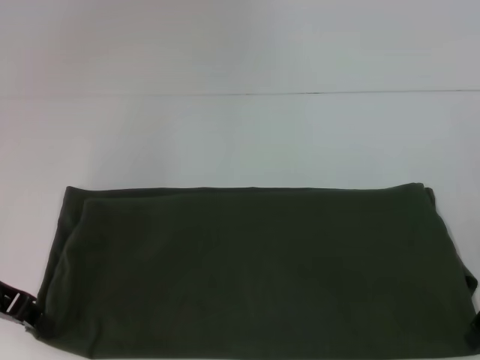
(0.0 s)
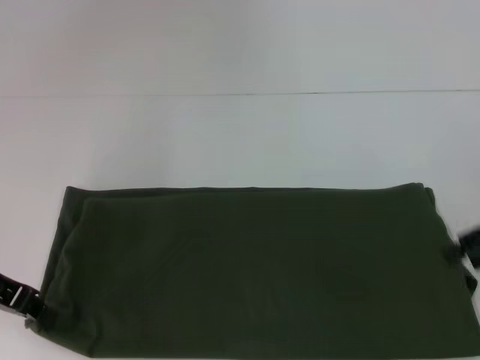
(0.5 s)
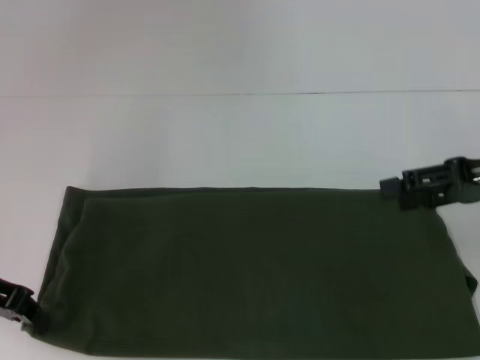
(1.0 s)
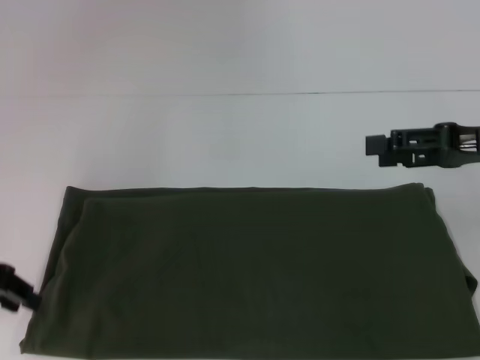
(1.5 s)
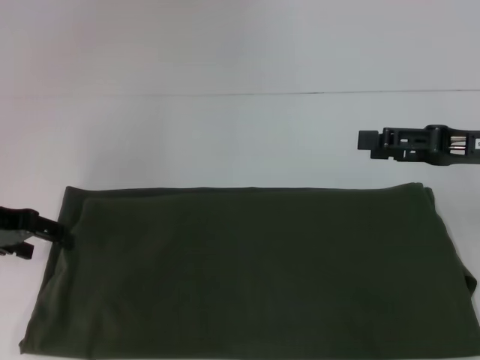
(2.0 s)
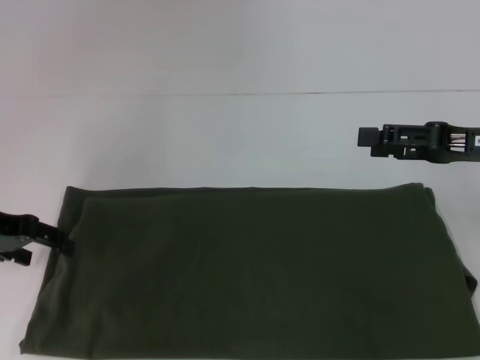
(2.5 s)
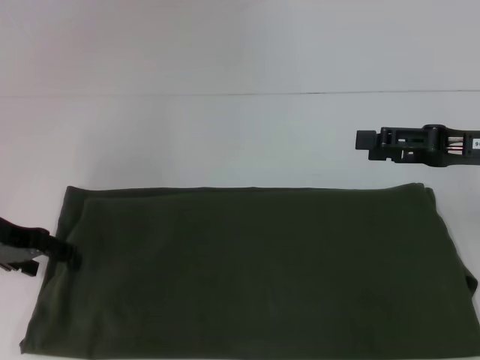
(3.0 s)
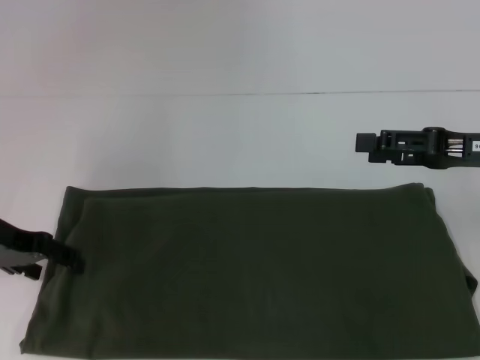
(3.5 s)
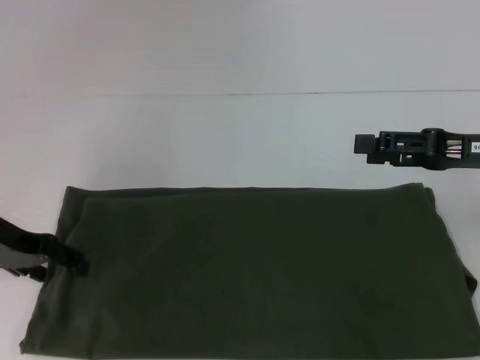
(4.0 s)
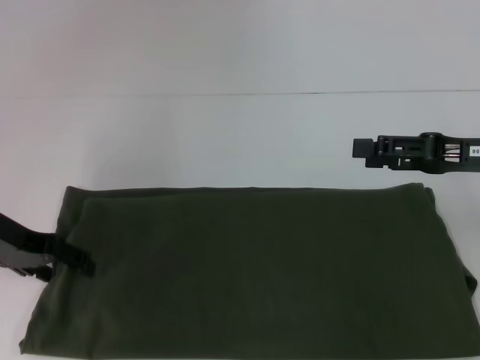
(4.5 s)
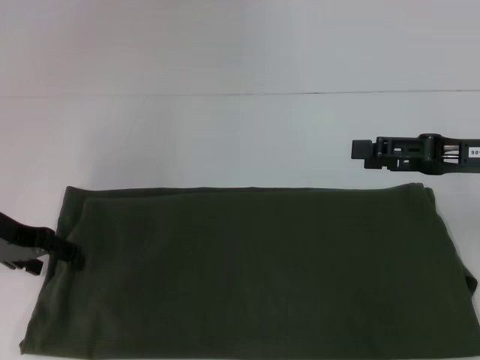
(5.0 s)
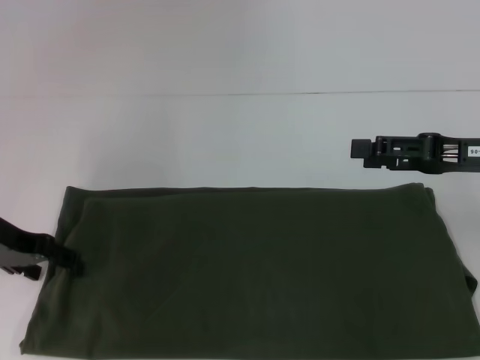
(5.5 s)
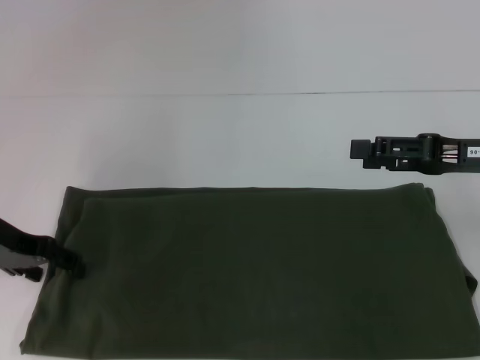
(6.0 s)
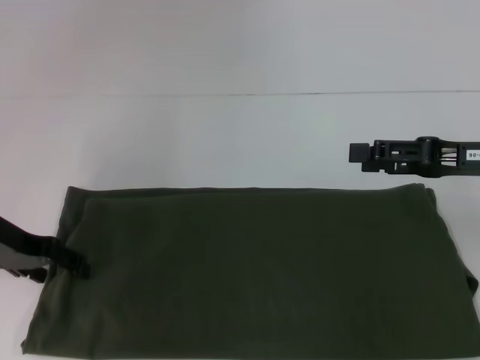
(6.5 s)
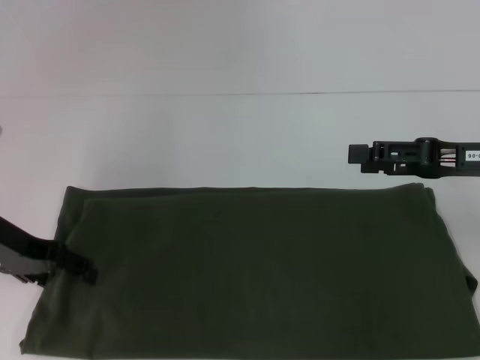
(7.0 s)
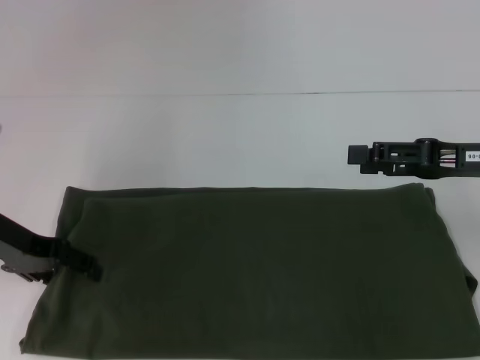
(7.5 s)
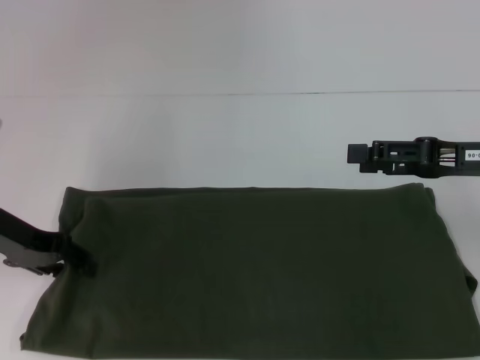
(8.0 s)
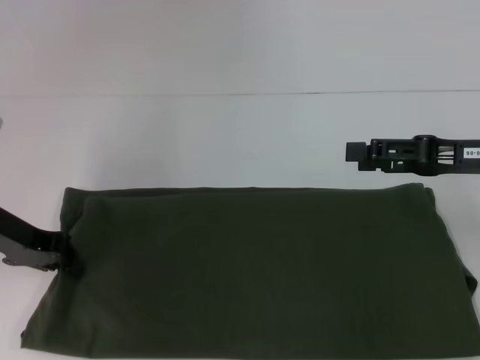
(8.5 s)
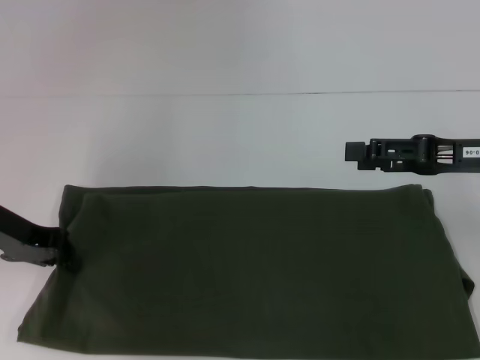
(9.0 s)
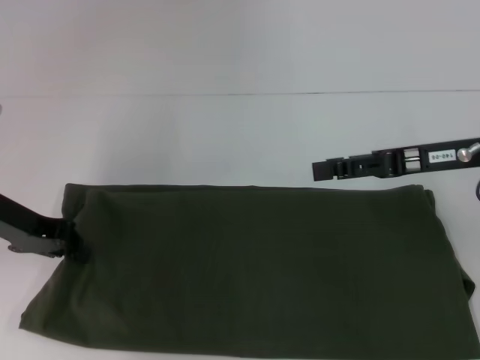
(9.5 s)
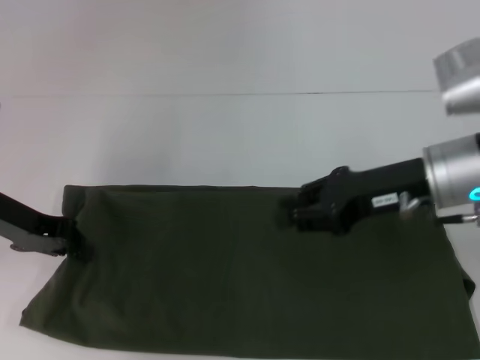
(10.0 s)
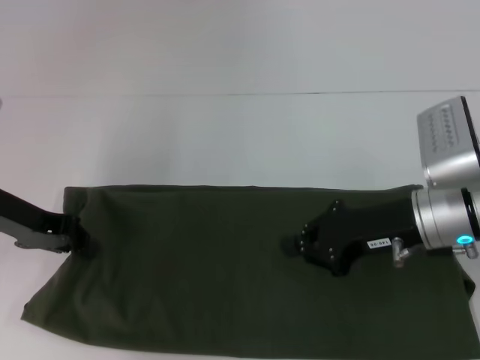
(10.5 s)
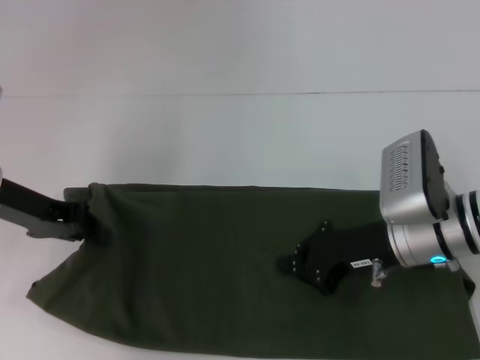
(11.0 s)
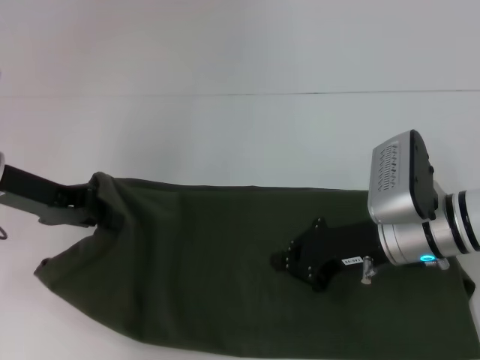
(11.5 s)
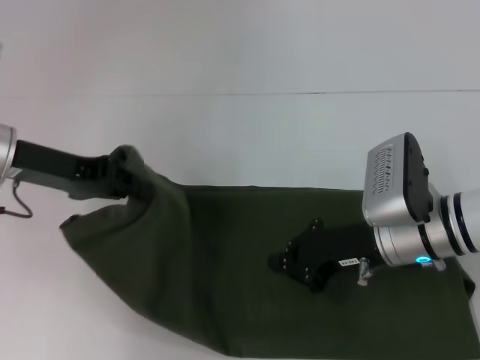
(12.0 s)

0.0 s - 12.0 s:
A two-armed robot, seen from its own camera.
Step, 0.5 s - 1.0 s: Pull the clothes with your left hand.
0.0 s - 2.0 s: The left gripper opens its fingers; the right gripper opens its fingers.
2.0 s - 4.0 s: There are only small adjustments of the grippers.
4.0 s - 6.0 s: Both grippers stay about where they are.
6.0 s - 8.0 s: There are only small adjustments of the grippers.
8.0 s - 10.0 s: The right gripper goes approximately 10 cm to the left, while the left gripper closes its fingers.
10.0 s - 12.0 s: The right gripper moves downward, about 10 cm, and closes.

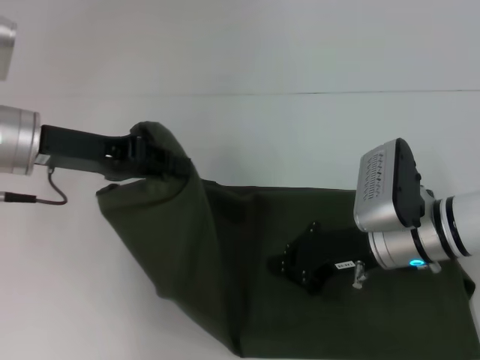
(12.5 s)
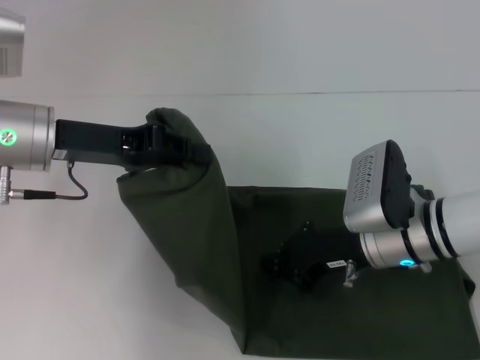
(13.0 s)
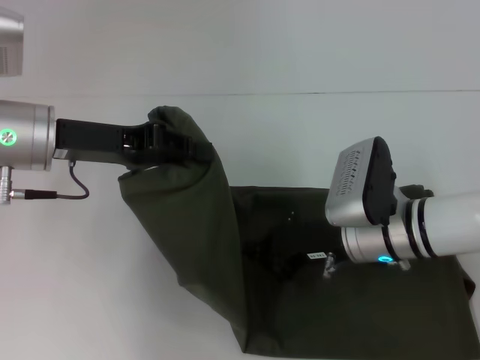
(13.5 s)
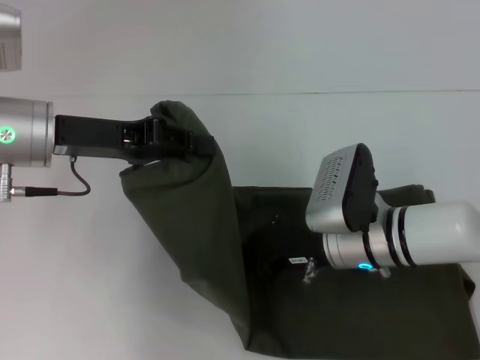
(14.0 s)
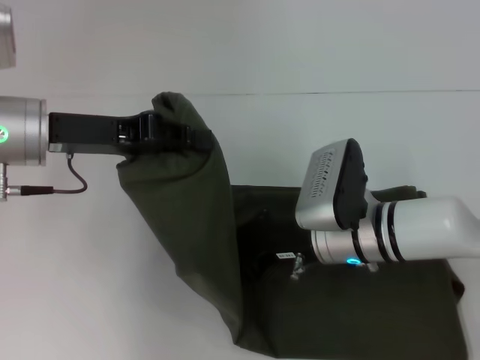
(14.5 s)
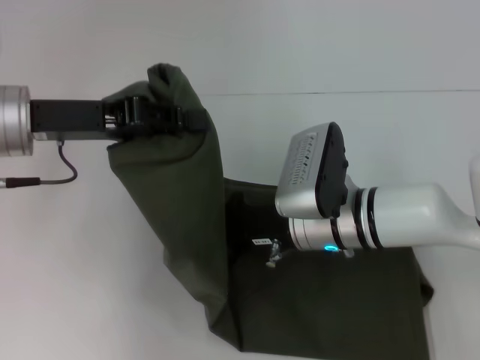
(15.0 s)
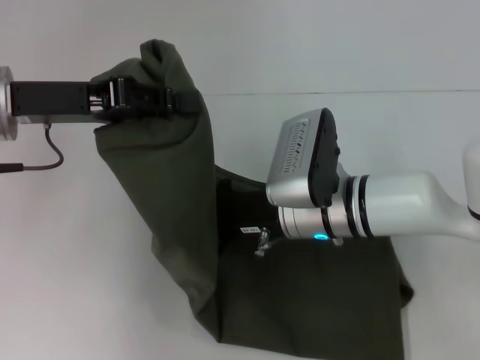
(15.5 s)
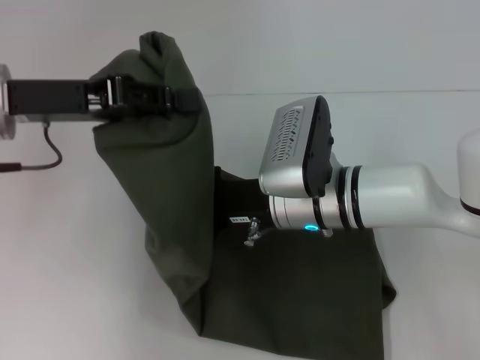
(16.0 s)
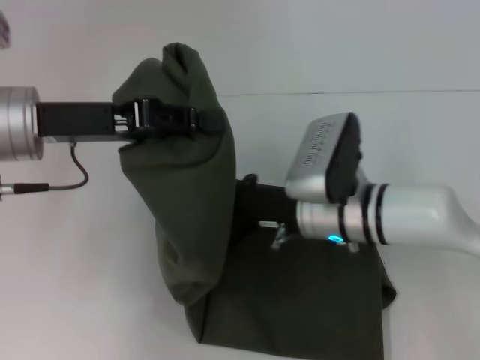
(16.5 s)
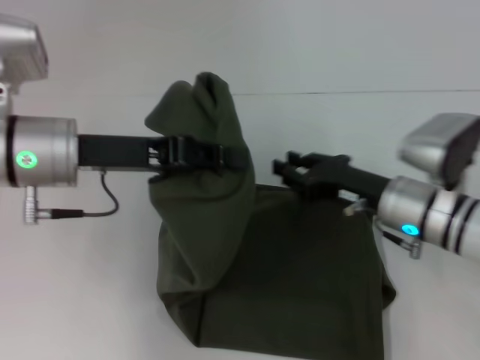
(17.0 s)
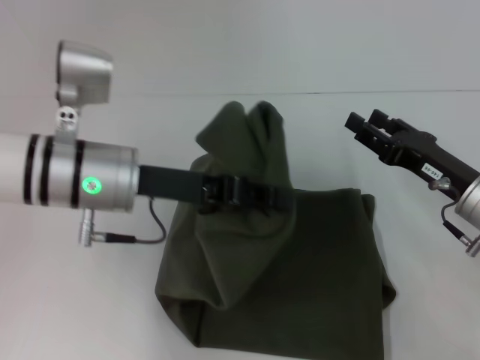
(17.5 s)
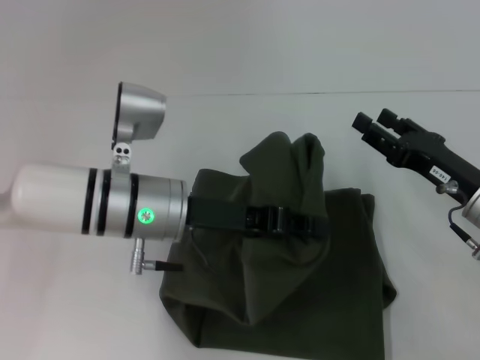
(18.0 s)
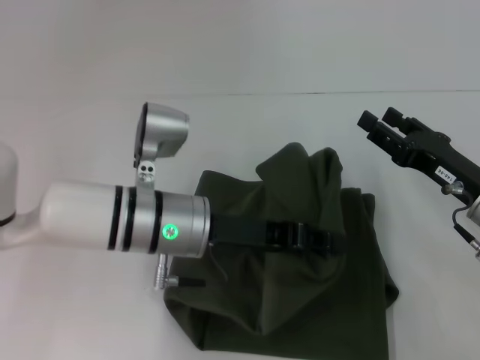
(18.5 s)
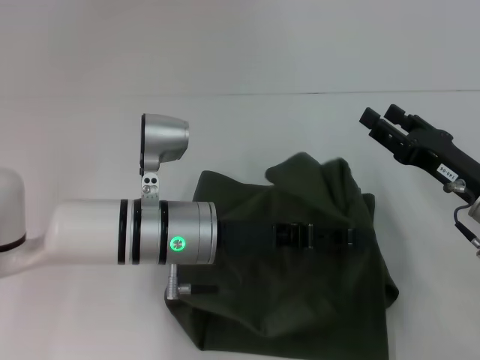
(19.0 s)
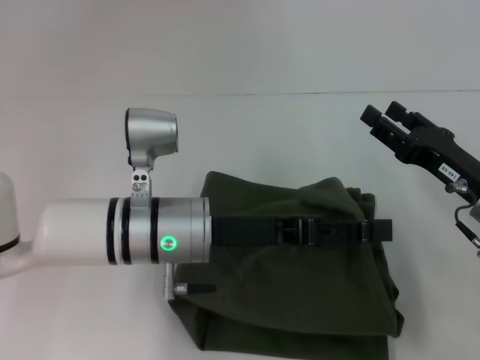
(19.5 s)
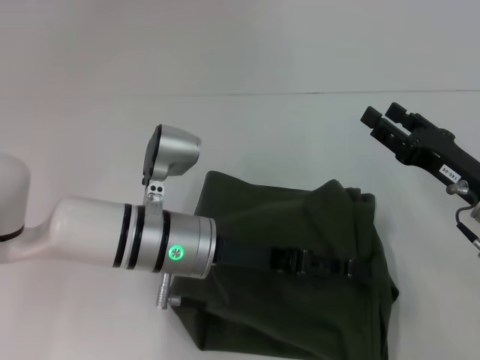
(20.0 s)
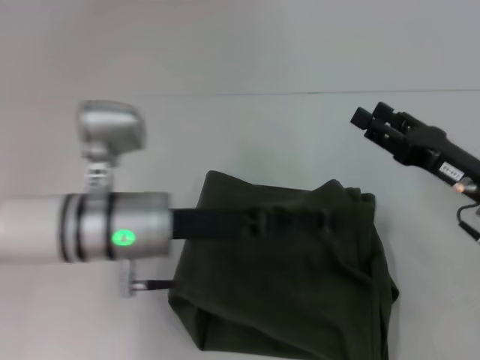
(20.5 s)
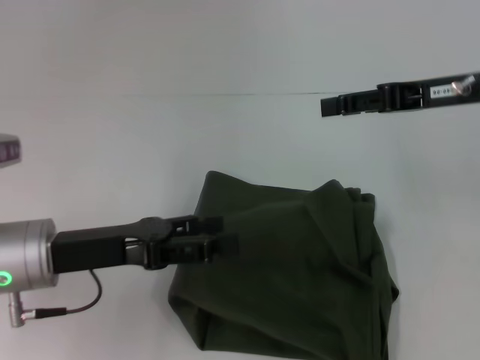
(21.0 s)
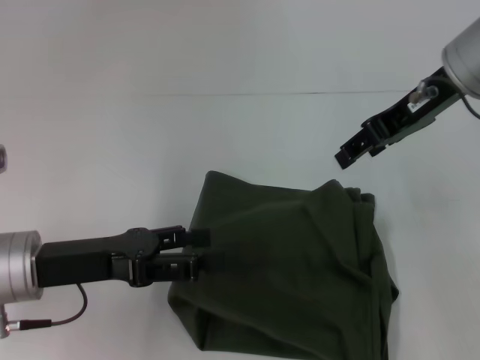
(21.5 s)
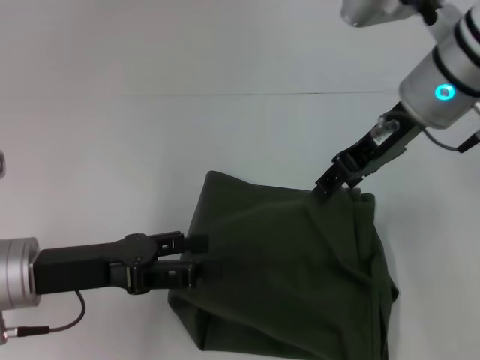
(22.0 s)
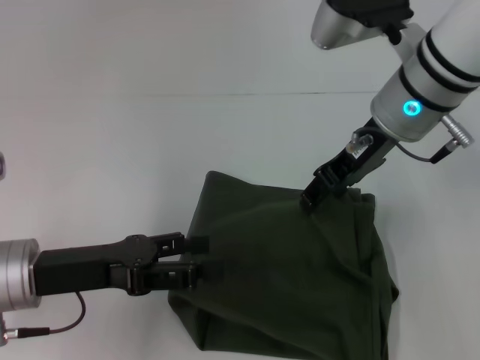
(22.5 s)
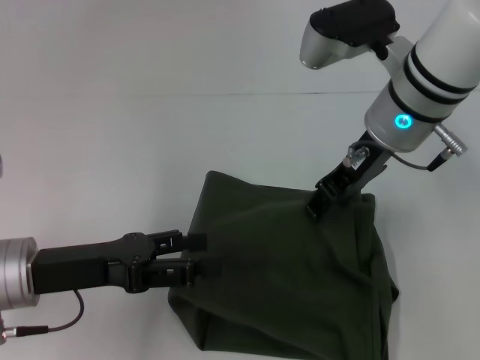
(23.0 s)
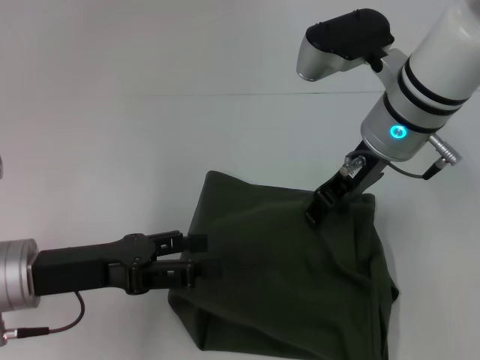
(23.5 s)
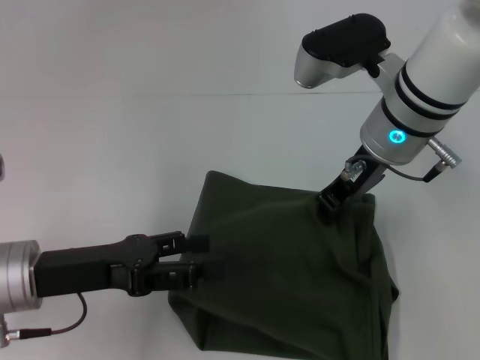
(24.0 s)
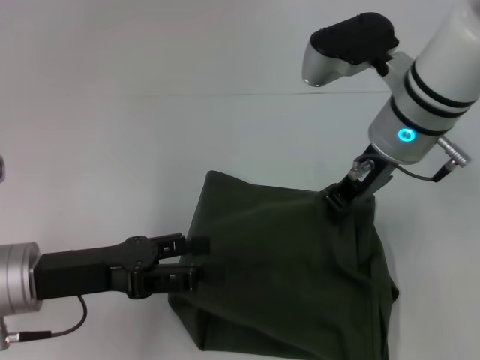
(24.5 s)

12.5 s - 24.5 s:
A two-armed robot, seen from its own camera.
Step, 12.5 s - 19.0 s: Fold the clothes with your left hand.
12.5 s - 14.5 s: The right gripper shifts some 5 cm to the left.
16.5 s - 18.5 s: The right gripper moves to the right, about 15 cm, and opens its fingers, while the left gripper heads to the right and downward, covering roughly 15 cm.
18.5 s - 20.5 s: The left gripper opens.
20.5 s - 22.5 s: The right gripper shifts approximately 20 cm upward, to the left and forward; the left gripper travels to the left by about 10 cm.
22.5 s - 24.5 s: The right gripper closes up.

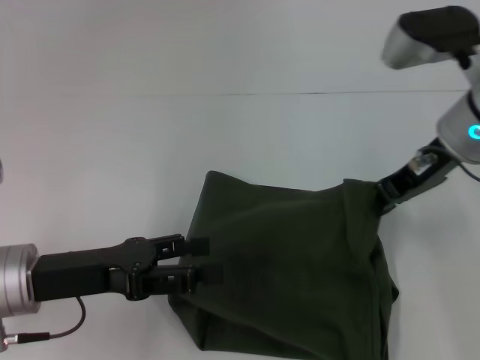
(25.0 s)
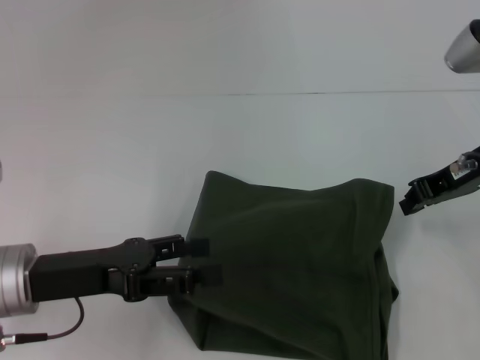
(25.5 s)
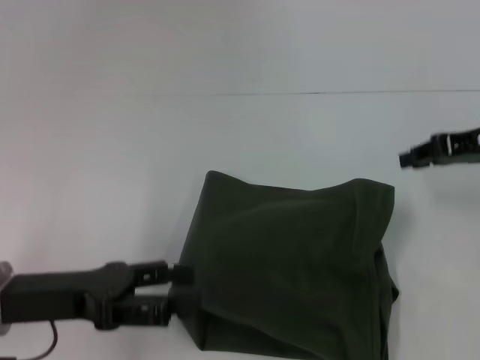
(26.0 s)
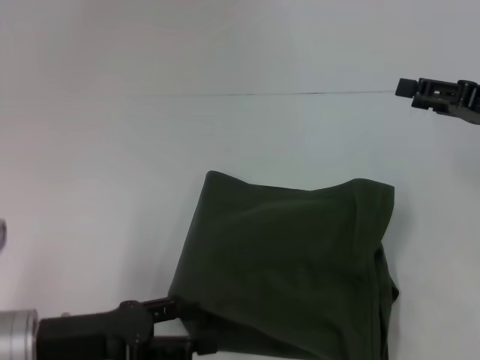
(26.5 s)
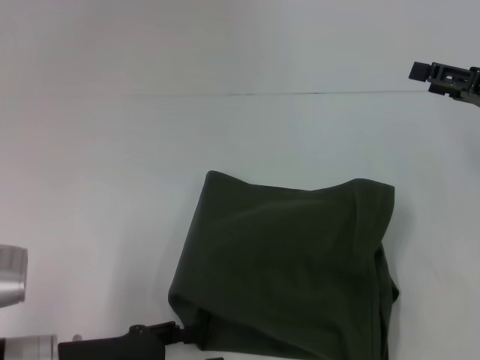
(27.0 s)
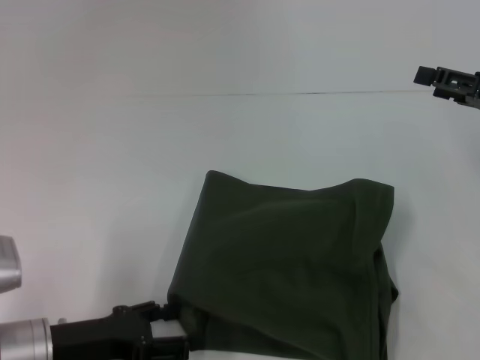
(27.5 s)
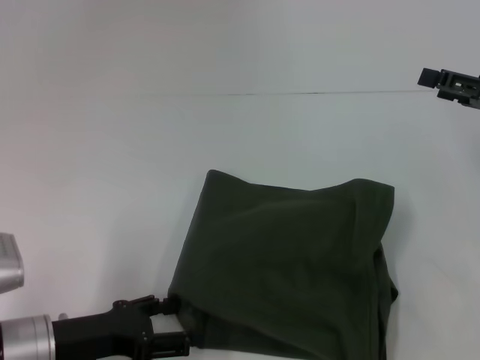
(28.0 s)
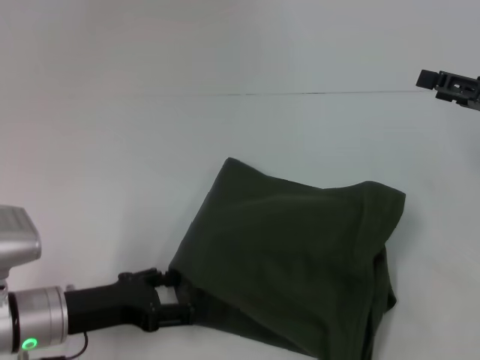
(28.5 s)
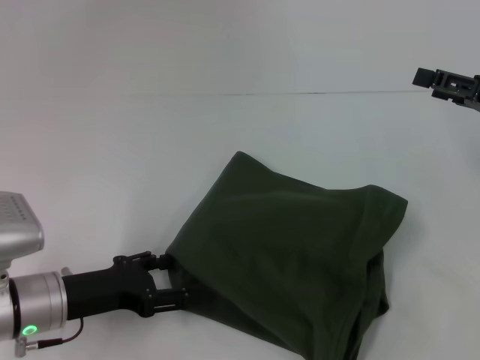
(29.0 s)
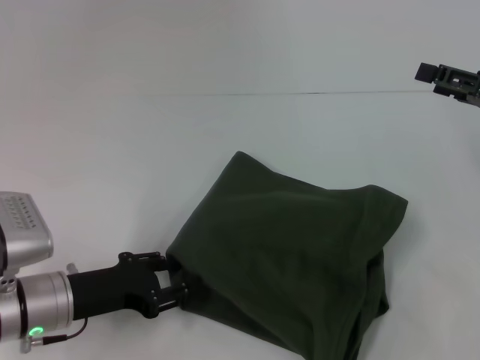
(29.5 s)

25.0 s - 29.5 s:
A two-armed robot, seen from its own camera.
25.0 s - 27.0 s: The left gripper is displaced downward by some 5 cm, while the right gripper is displaced to the right by approximately 15 cm, and opens its fingers.
27.0 s - 29.5 s: The left gripper heads forward, covering some 5 cm.
